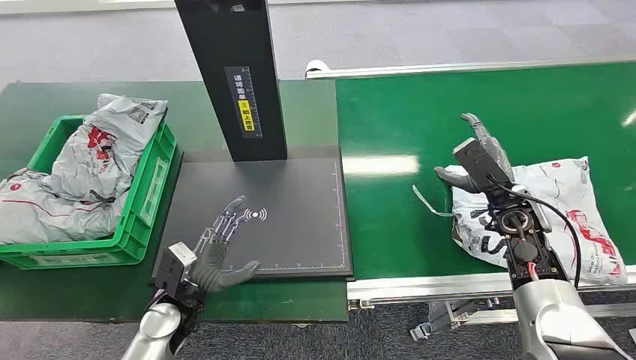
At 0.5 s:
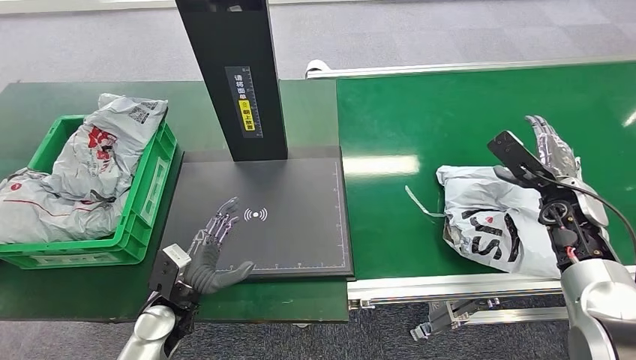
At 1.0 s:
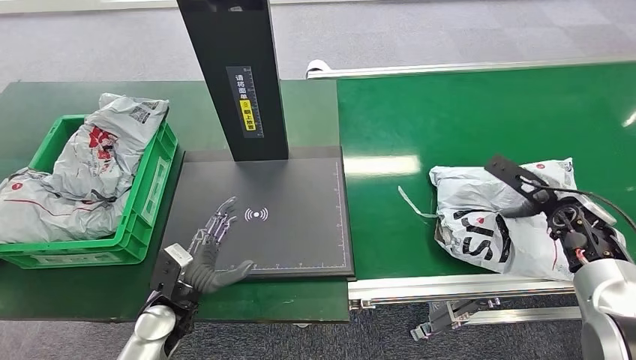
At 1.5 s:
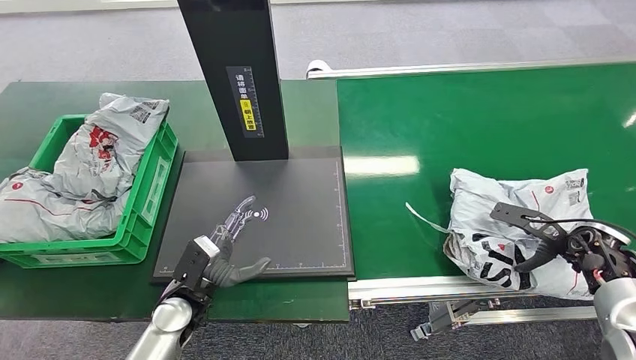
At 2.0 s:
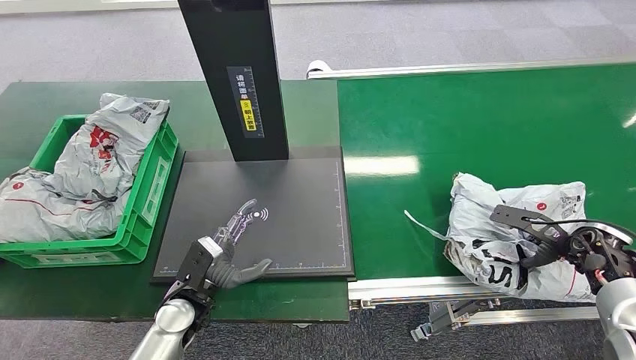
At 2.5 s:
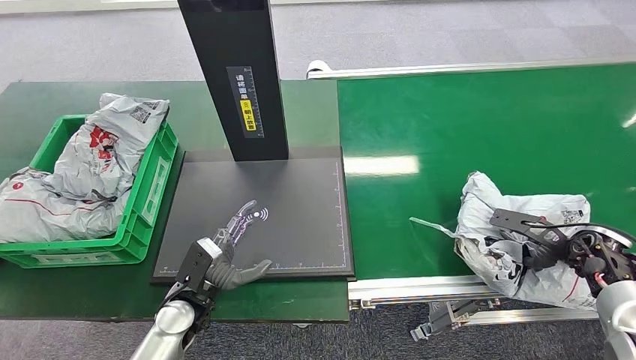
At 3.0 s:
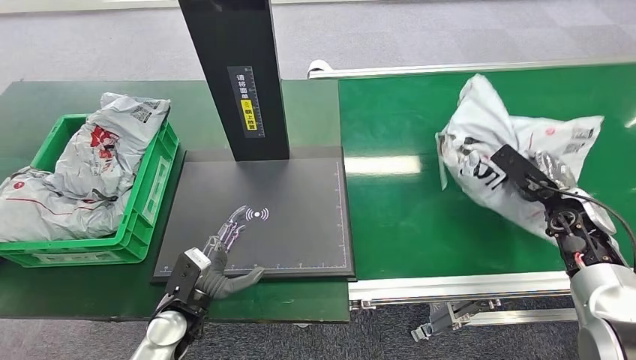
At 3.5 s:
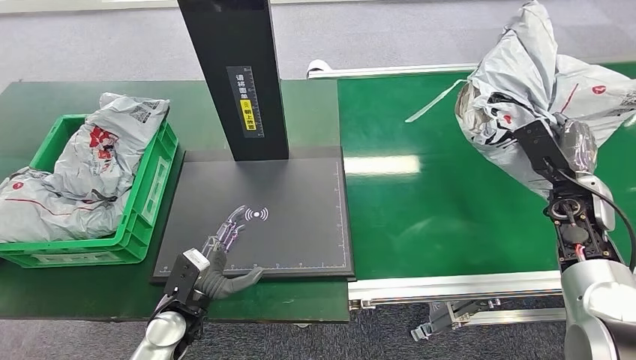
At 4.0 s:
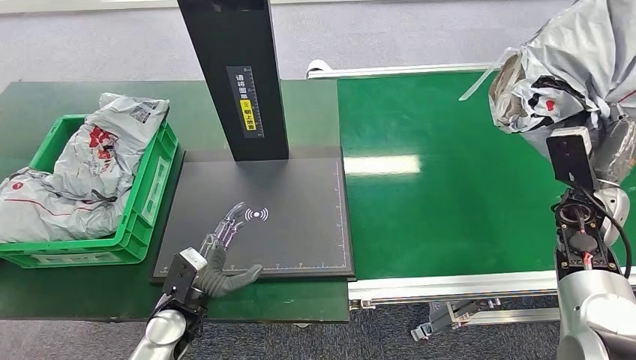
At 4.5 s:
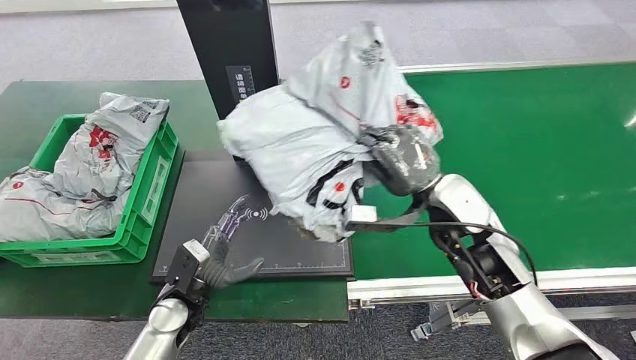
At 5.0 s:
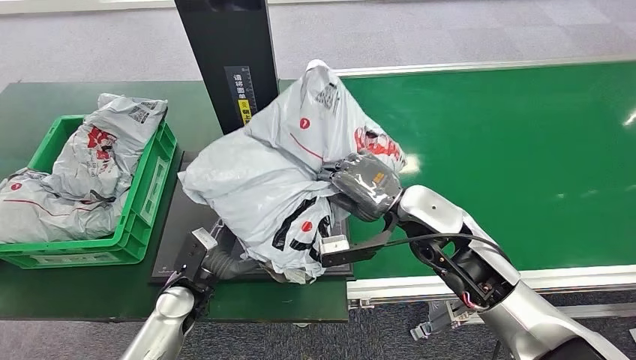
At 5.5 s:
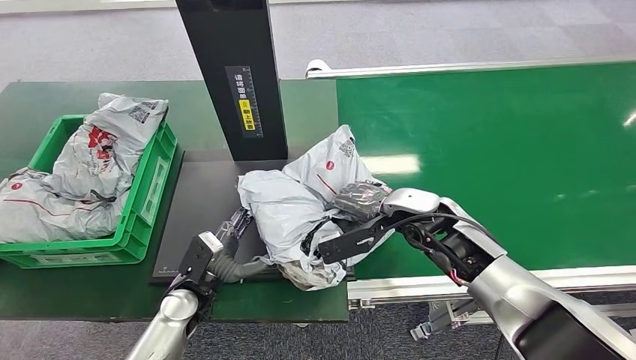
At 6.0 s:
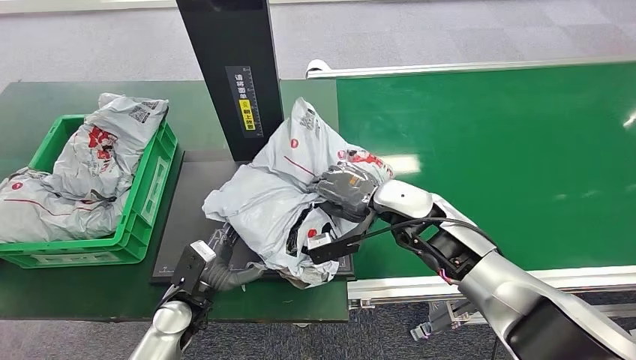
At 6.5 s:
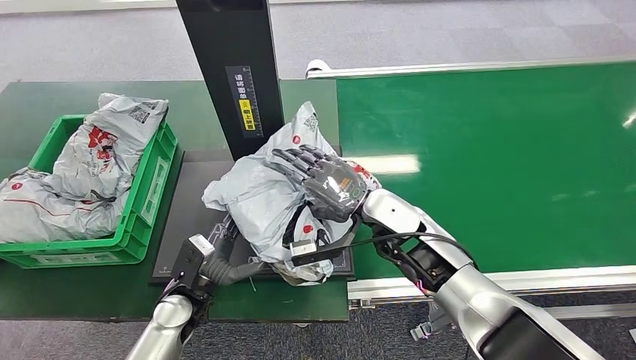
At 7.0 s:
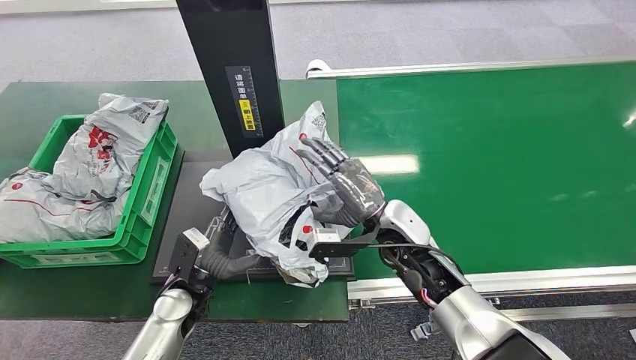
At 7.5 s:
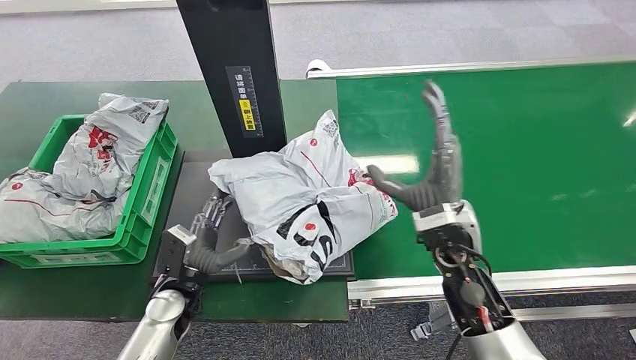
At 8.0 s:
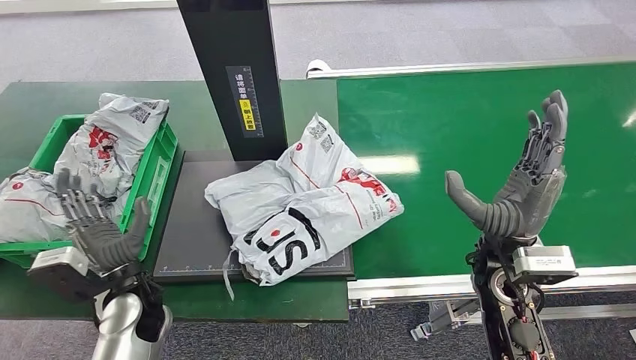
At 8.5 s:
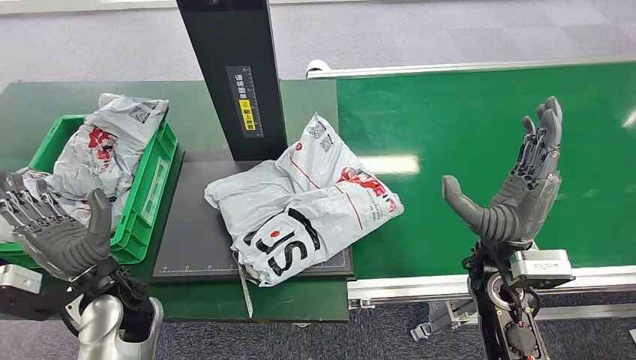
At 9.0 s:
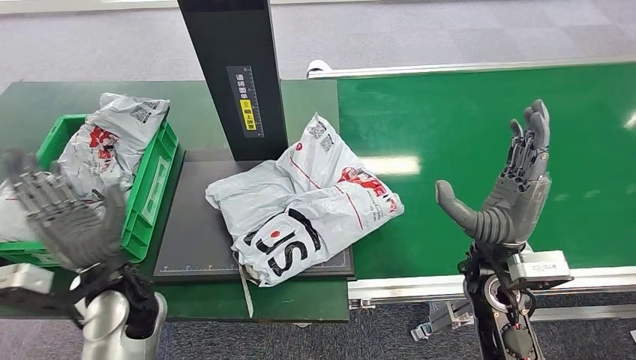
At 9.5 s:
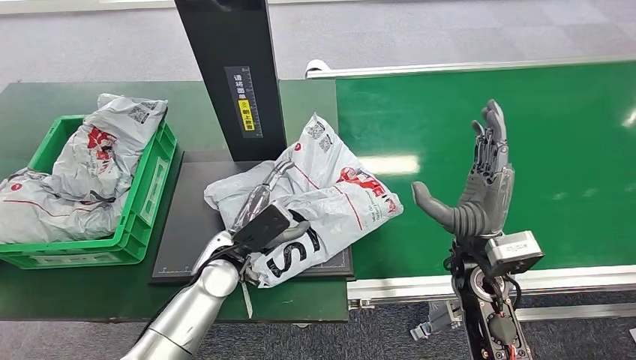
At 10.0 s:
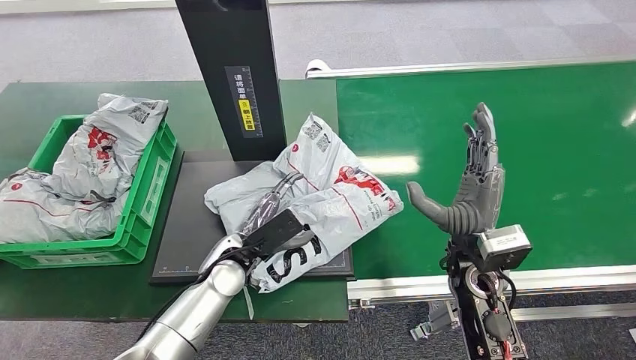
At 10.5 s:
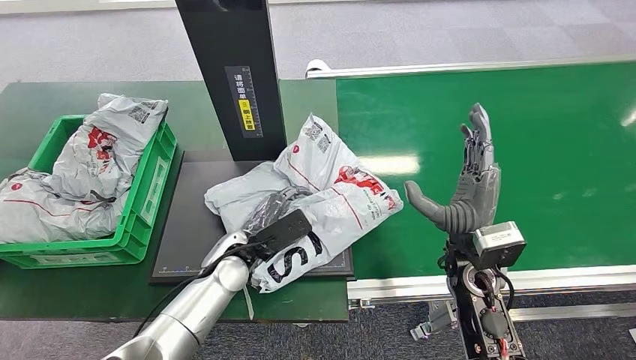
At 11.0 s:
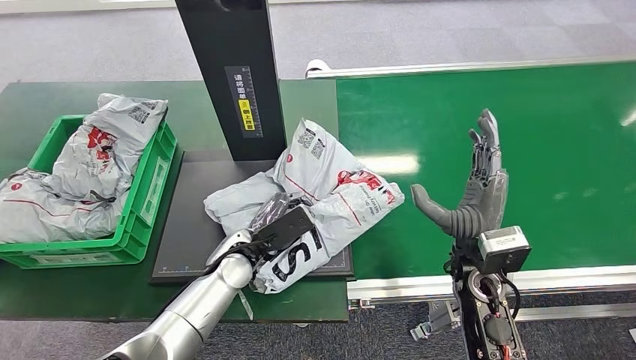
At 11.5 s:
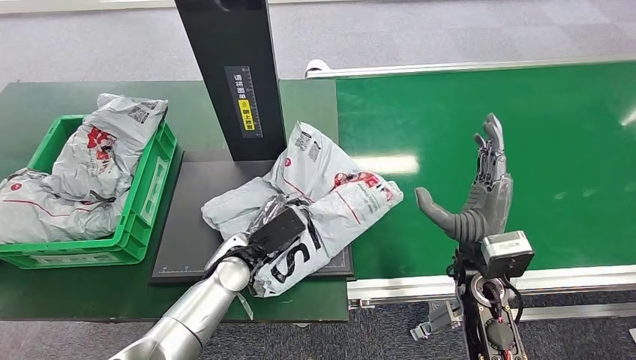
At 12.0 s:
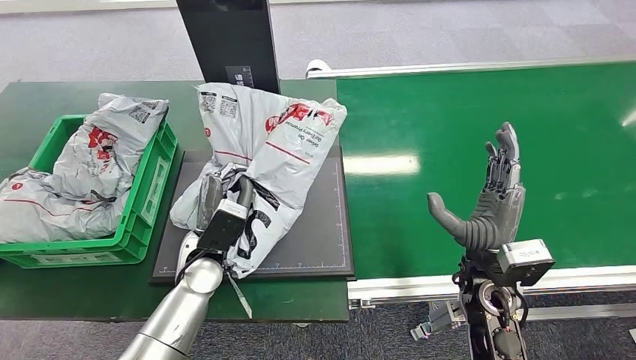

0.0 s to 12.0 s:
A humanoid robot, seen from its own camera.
Step, 0.0 to 3.5 s: Pick up the package from the conveyor belt.
Step, 4.0 to 8.5 s: Place the package onto the inbound machine.
2.0 to 4.0 s: The right hand goes approximately 10 cm to the left and upward.
8.0 to 10.0 s: The left hand heads to the right and forward, covering about 15 cm.

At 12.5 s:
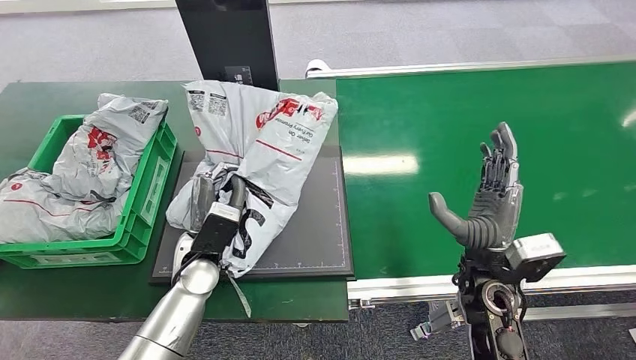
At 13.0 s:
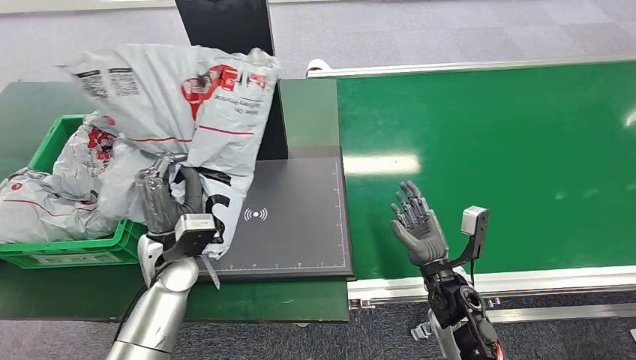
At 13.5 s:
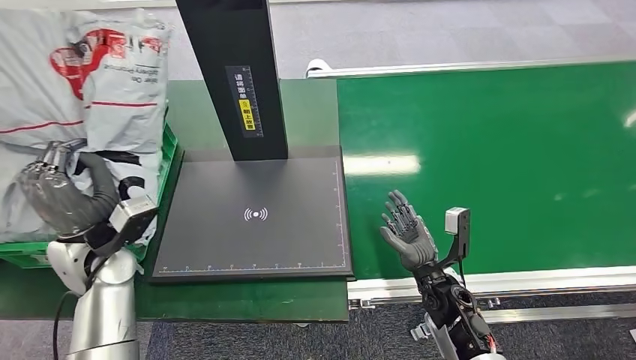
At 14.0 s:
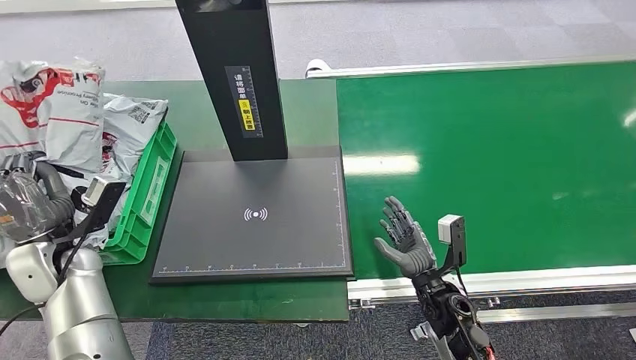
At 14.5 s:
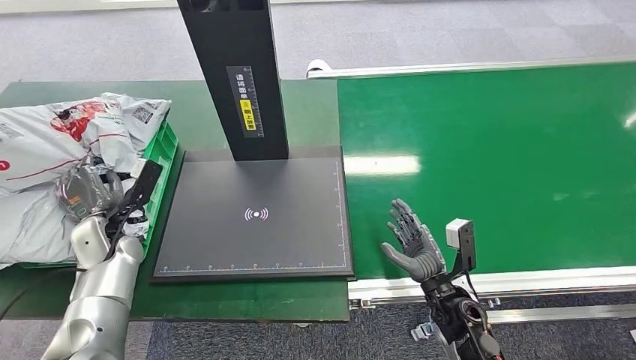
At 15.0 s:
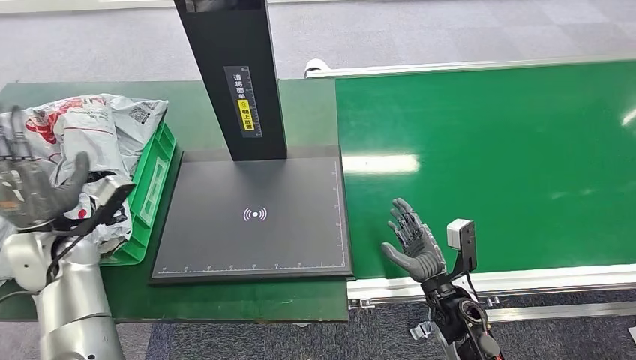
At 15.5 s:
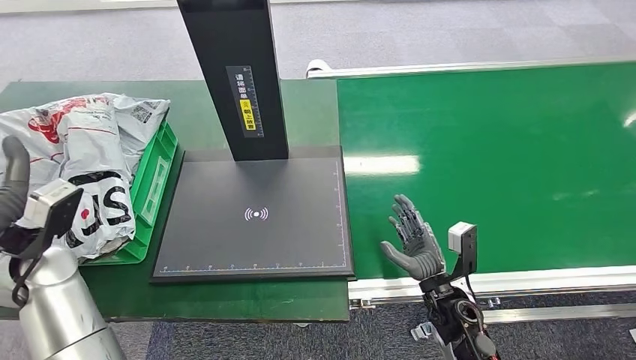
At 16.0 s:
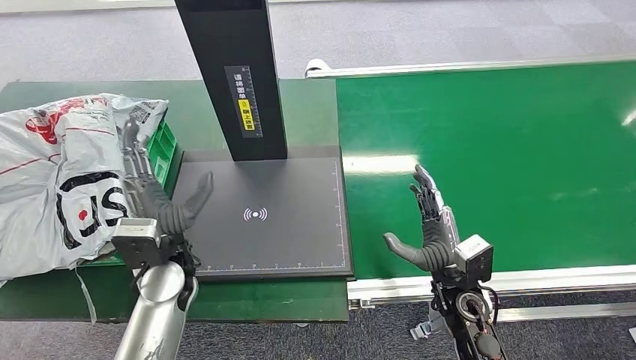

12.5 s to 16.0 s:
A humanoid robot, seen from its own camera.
Step, 13.5 to 16.0 s: Place the package into the parcel locker.
14.5 to 16.0 s: The left hand moves to the right and backward, about 15 cm.

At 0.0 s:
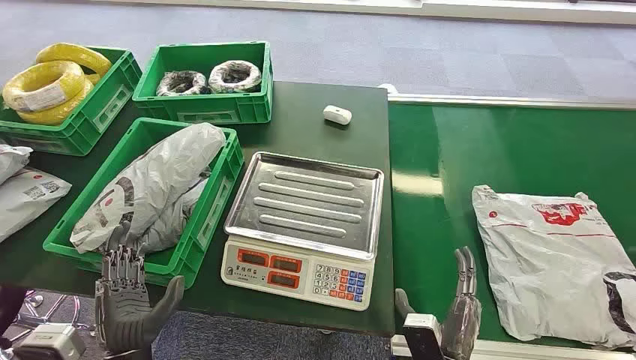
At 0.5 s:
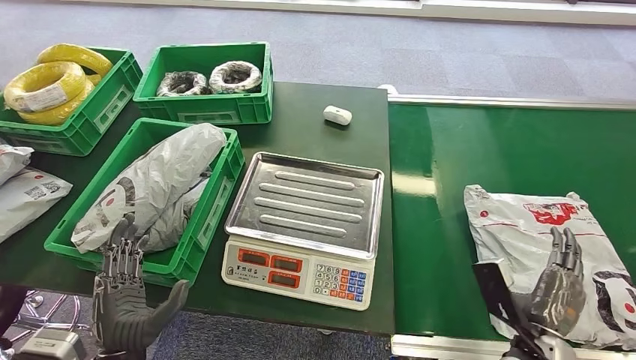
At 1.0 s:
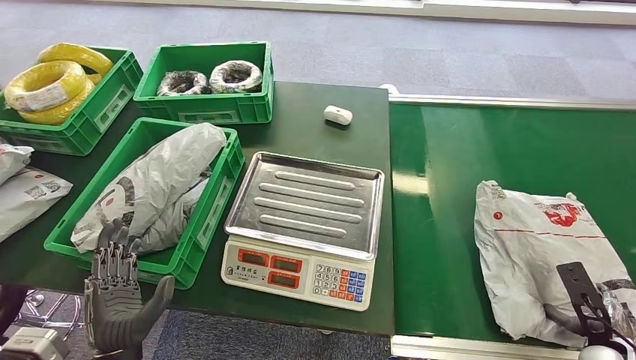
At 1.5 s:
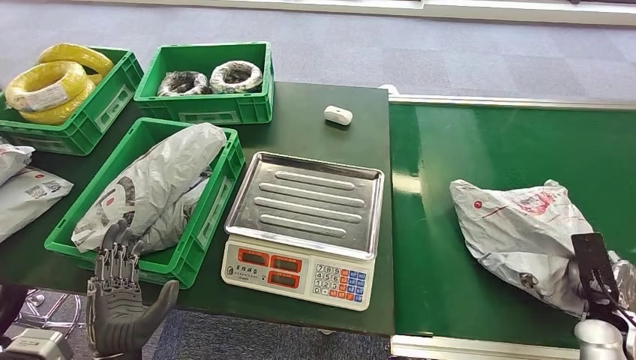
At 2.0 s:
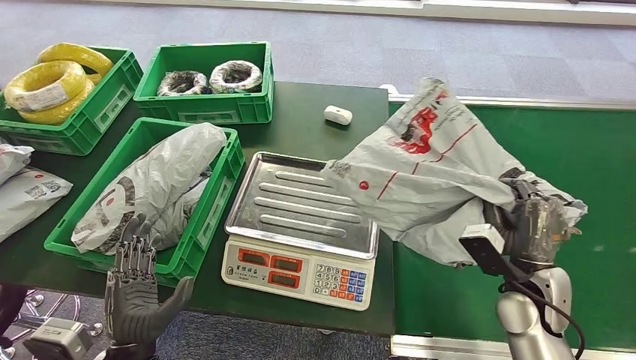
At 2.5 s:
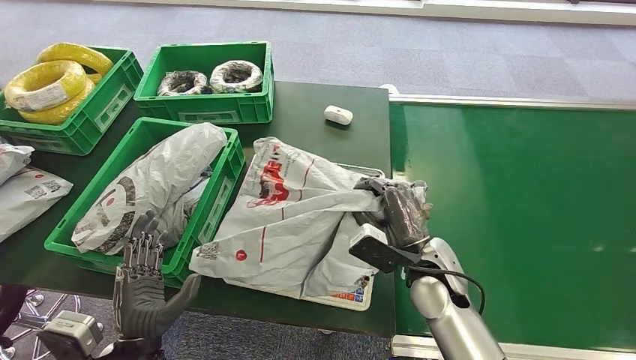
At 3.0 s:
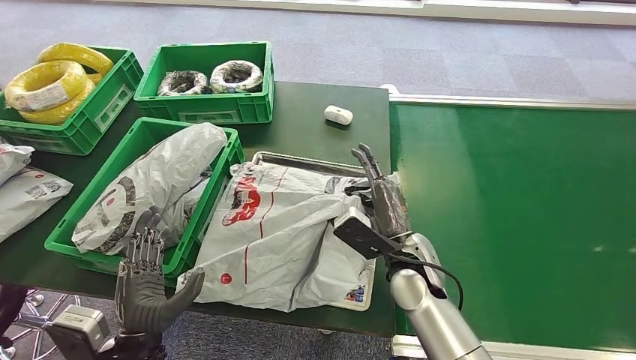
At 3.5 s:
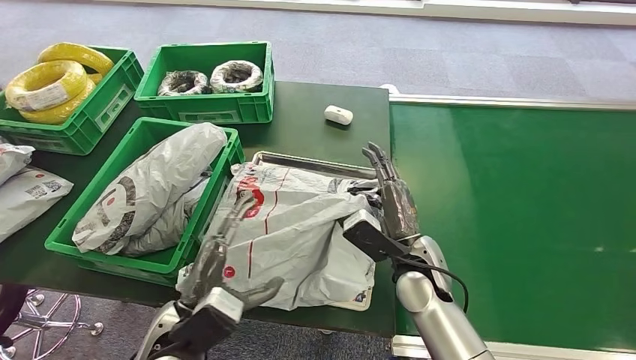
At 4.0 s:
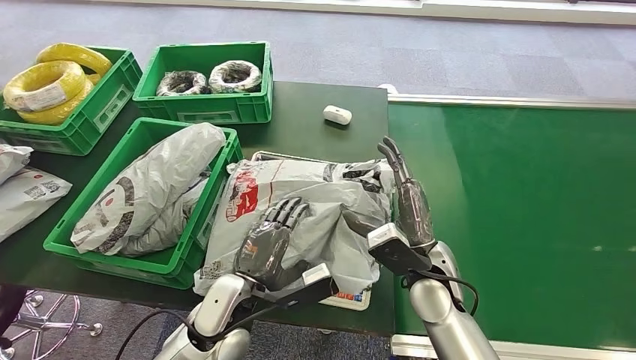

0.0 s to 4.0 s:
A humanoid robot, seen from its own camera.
Step, 0.0 to 1.5 s: Pick up the package from the conveyor belt.
Step, 2.0 to 3.5 s: Place the package onto the inbound machine.
